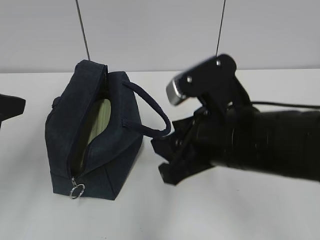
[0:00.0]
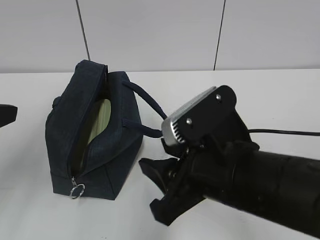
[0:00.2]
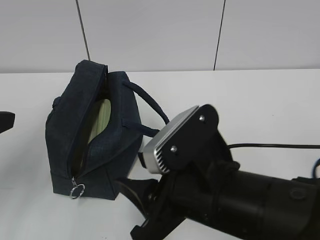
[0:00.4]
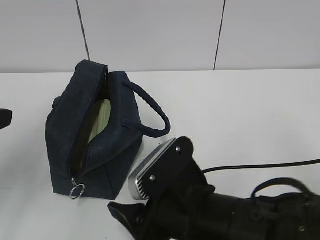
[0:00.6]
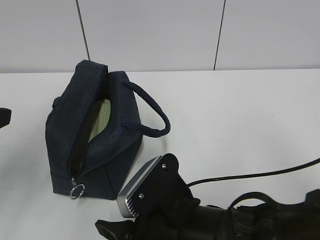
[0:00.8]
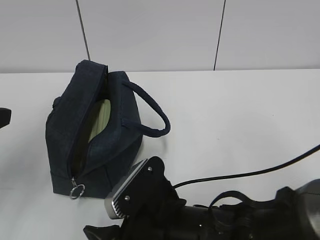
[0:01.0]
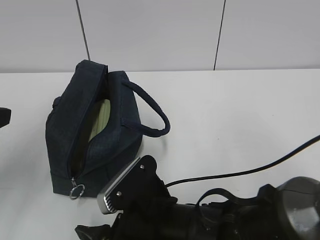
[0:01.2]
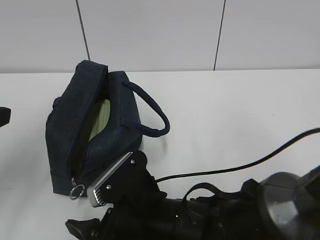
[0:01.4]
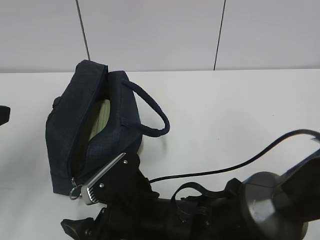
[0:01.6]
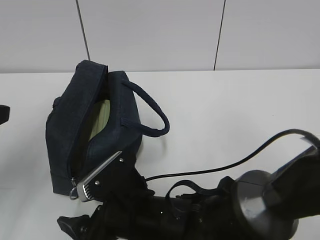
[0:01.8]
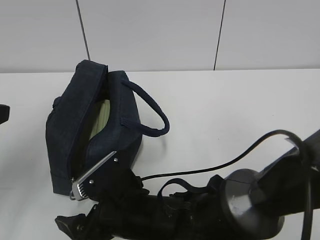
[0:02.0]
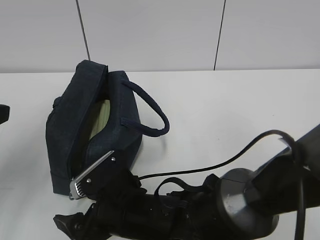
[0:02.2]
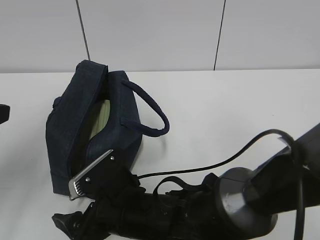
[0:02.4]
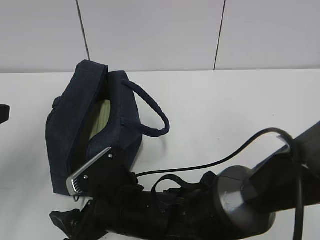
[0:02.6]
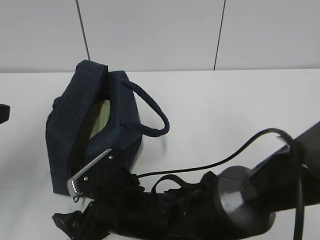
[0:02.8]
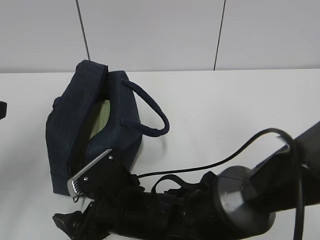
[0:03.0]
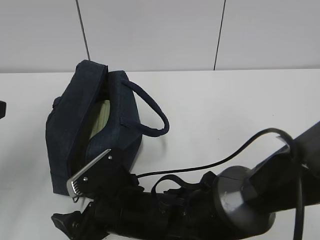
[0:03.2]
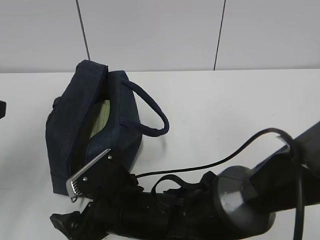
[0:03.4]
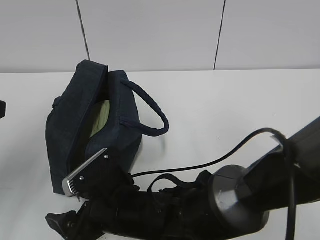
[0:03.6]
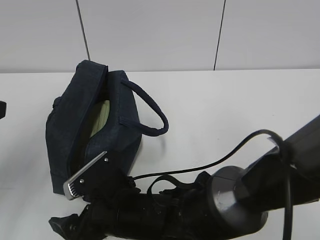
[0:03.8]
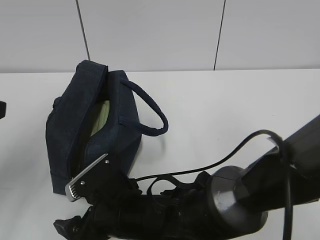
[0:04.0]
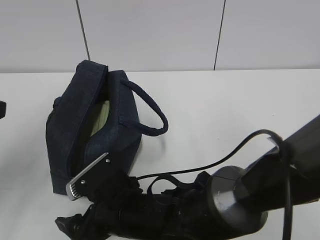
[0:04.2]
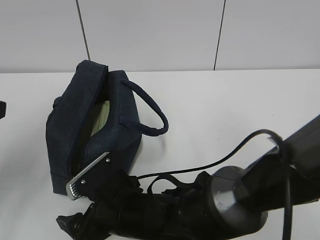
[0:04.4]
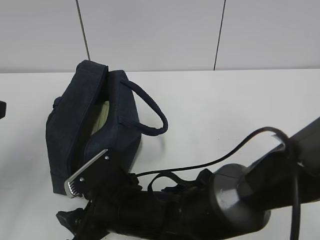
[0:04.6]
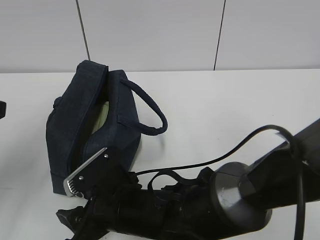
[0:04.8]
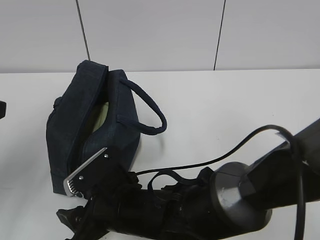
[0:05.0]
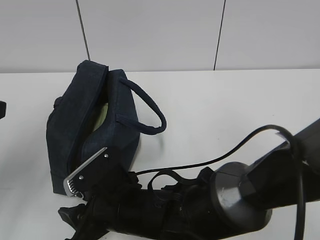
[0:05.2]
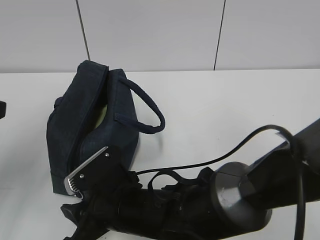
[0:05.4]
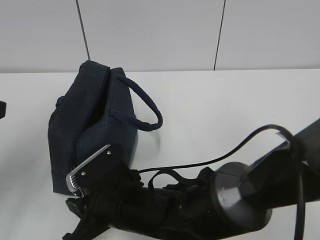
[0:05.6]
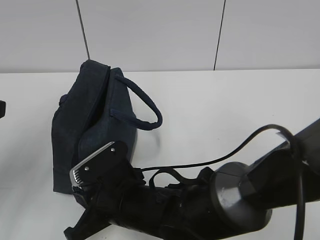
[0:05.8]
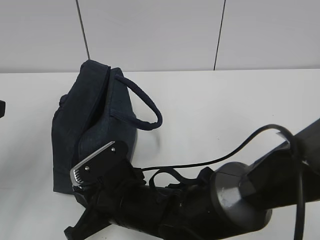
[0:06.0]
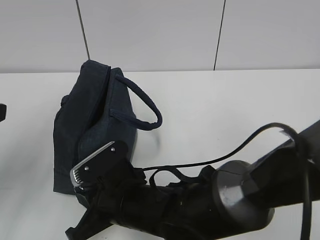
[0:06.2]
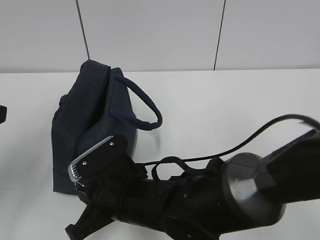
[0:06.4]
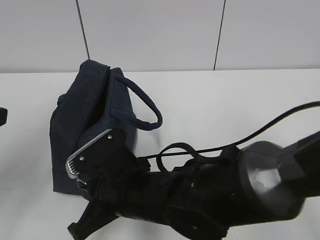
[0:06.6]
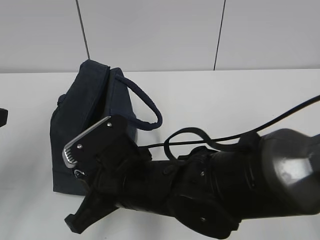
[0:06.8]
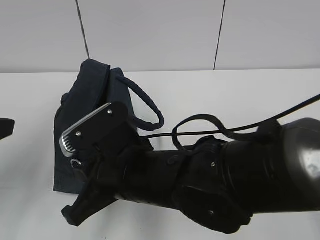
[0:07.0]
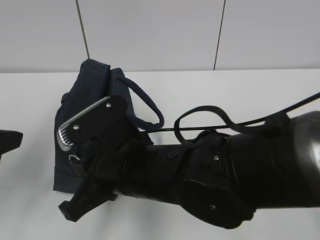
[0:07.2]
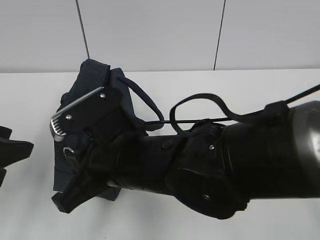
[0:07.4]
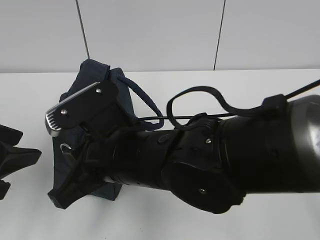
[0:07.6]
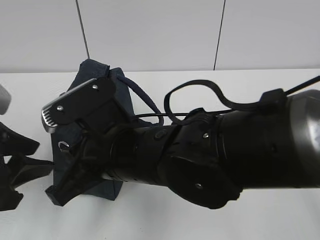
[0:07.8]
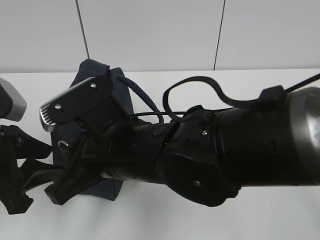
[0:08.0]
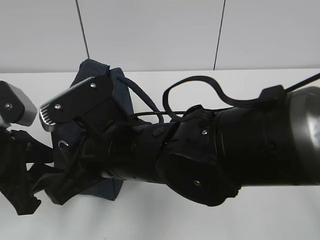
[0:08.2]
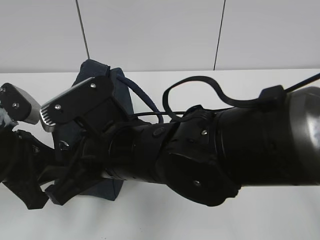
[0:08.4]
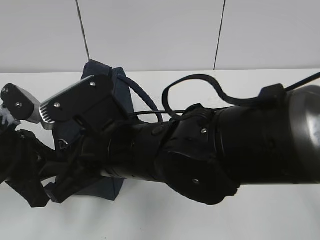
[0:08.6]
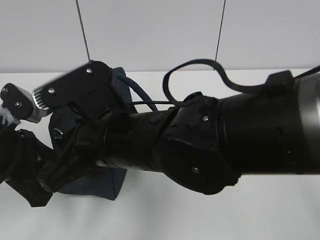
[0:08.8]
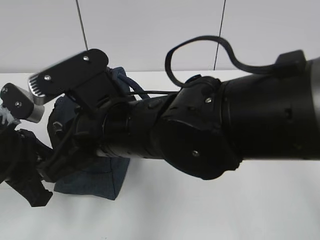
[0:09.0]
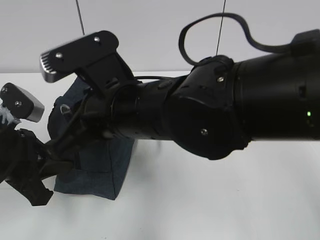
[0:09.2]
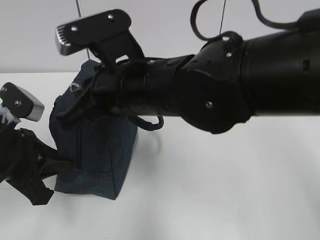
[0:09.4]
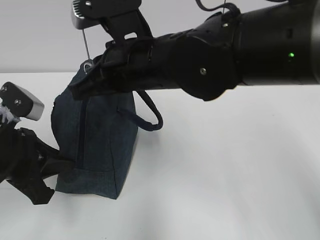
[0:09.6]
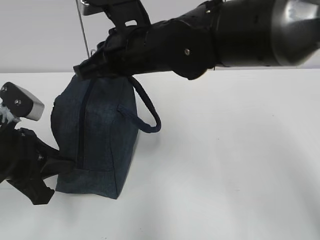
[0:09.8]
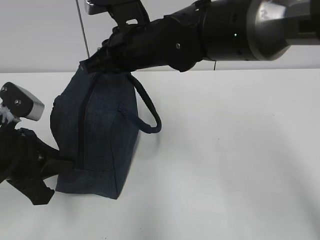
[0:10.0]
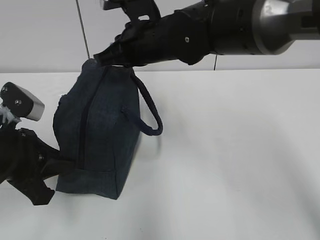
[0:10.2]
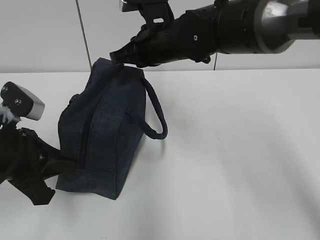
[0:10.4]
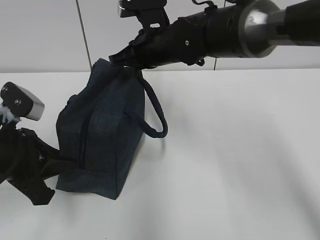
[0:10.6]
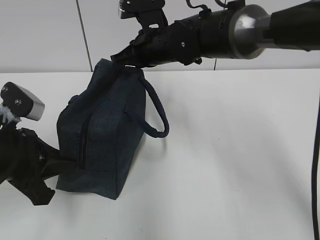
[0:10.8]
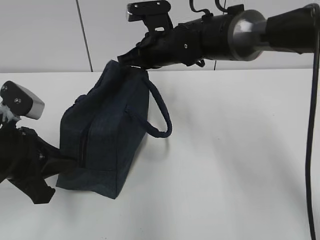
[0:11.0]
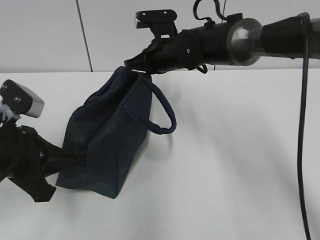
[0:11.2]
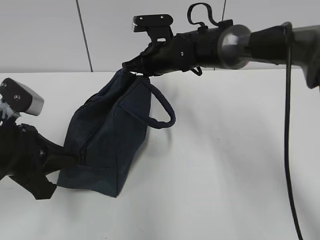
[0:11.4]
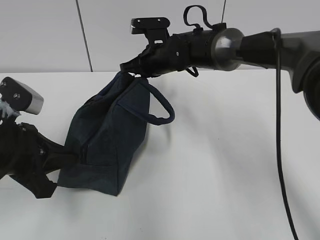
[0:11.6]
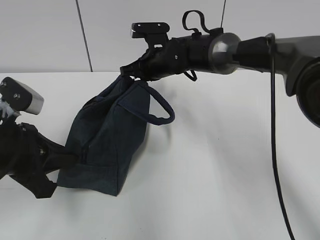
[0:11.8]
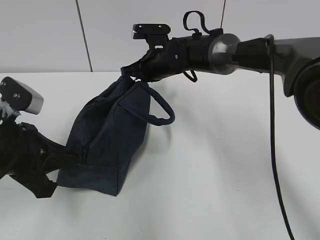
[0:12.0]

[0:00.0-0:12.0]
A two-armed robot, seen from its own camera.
0:00.0 to 0:01.6: The right gripper travels downward and to the left by roughly 15 cm.
0:01.6 to 0:03.0: The grippers make only small movements.
0:03.0 to 0:04.4: Both grippers stay put.
0:04.4 to 0:06.0: The right gripper closes its fingers.
0:06.0 to 0:07.6: The left gripper changes place by about 5 cm. Meanwhile the right gripper goes roughly 10 cm upward.
0:07.6 to 0:09.0: The left gripper travels downward by some 5 cm, and closes up.
0:09.0 to 0:10.4: The right gripper goes approximately 20 cm forward.
0:10.4 to 0:12.0: The right gripper heads forward and downward, covering about 10 cm.

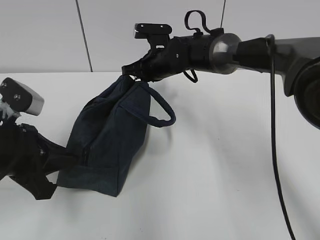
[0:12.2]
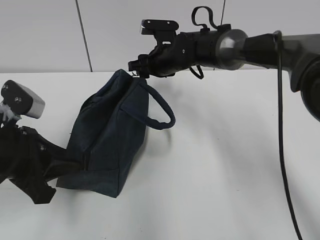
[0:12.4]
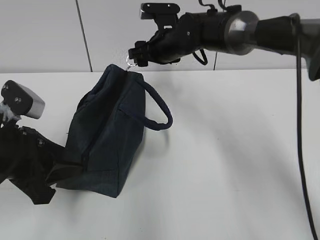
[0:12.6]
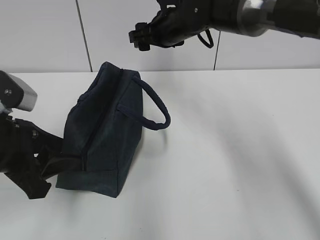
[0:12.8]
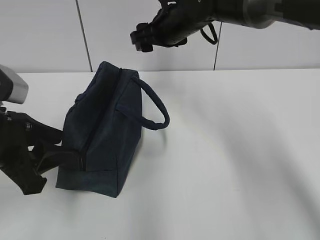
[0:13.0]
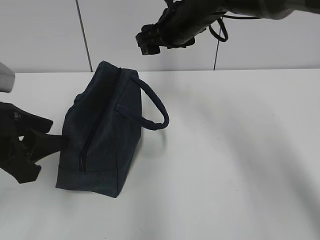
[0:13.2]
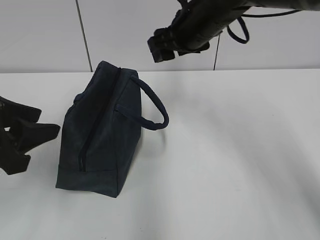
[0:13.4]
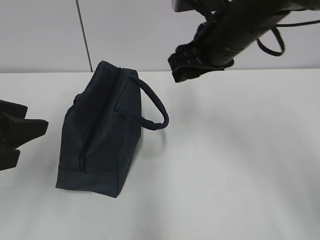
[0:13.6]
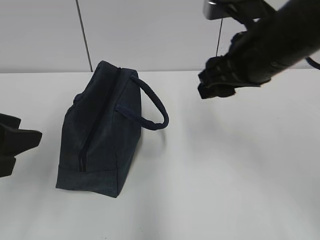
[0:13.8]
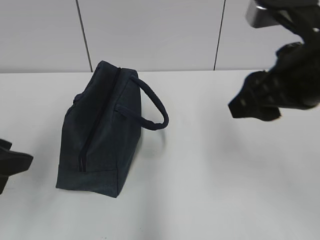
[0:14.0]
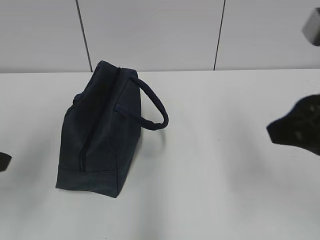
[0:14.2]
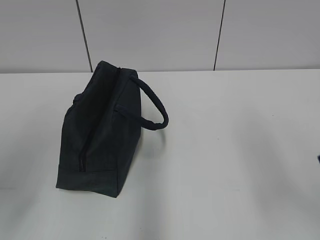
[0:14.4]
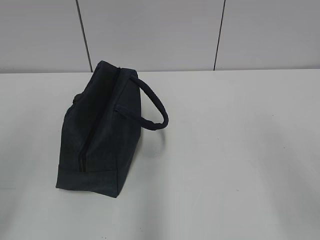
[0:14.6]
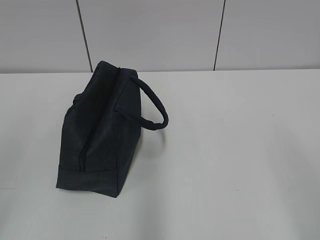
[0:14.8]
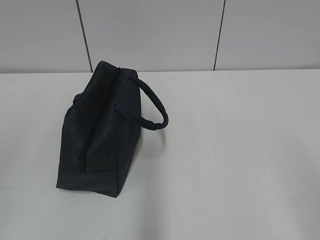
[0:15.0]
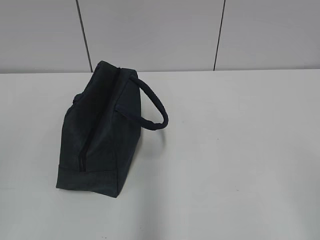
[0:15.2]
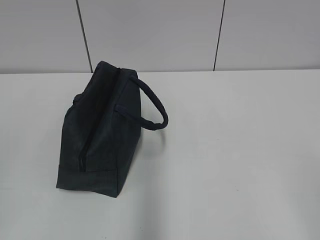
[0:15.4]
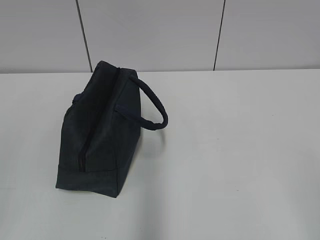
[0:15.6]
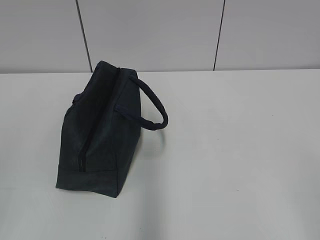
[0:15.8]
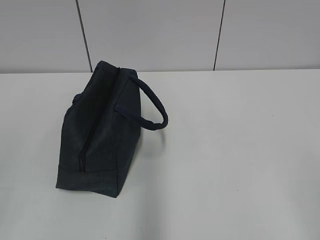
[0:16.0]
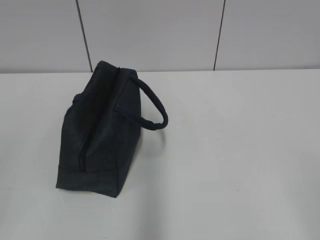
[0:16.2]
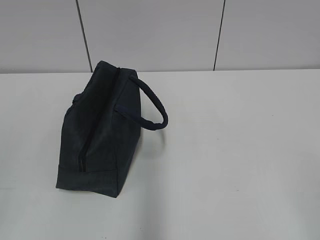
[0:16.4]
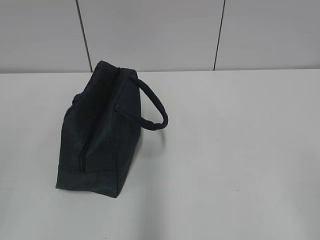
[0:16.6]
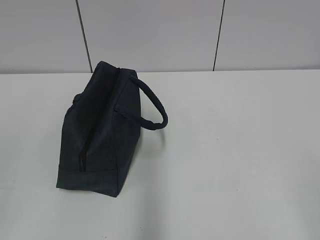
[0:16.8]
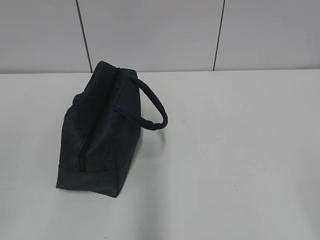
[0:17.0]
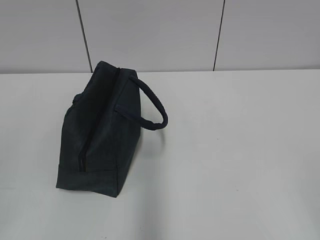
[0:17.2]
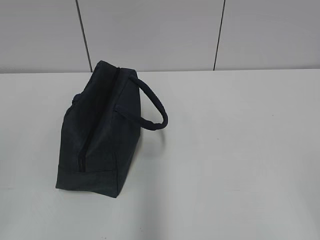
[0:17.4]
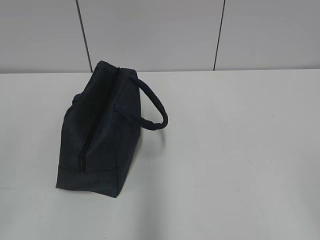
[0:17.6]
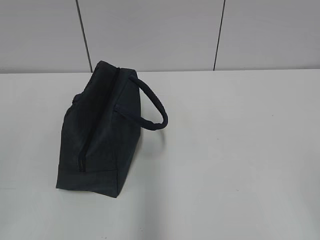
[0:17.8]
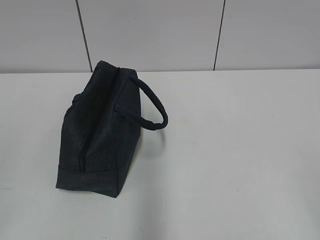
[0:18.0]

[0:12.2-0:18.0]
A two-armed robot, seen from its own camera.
0:12.2 to 0:13.6: The right gripper moves backward, upward and to the right, about 20 cm, and opens its fingers. The left gripper heads upward, covering roughly 5 cm, and opens.
0:13.6 to 0:15.0: The left gripper travels backward by roughly 20 cm. The right gripper moves backward and to the right, about 35 cm.

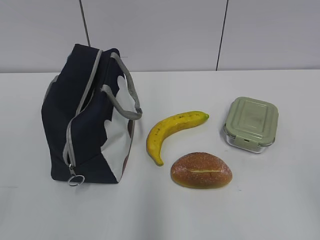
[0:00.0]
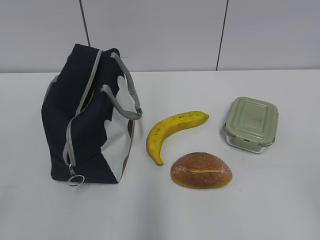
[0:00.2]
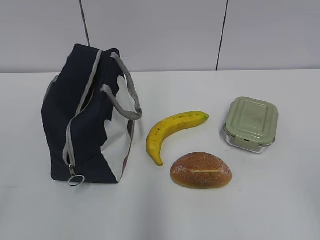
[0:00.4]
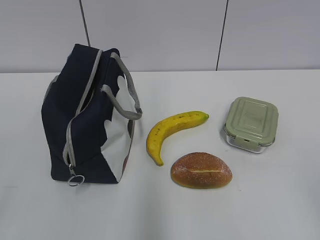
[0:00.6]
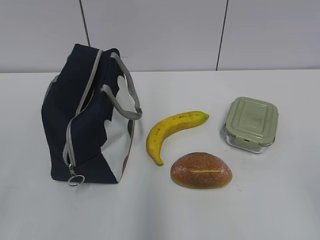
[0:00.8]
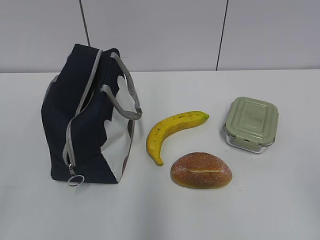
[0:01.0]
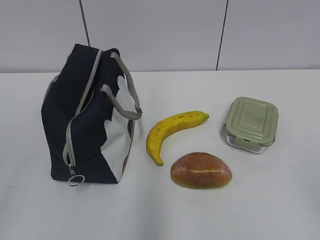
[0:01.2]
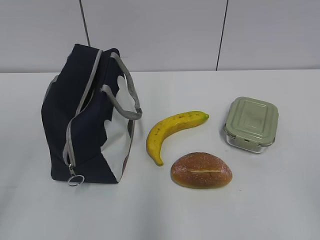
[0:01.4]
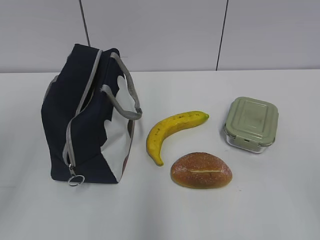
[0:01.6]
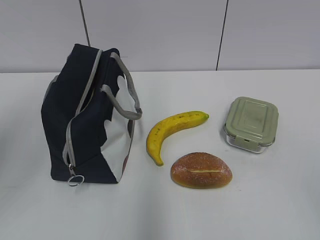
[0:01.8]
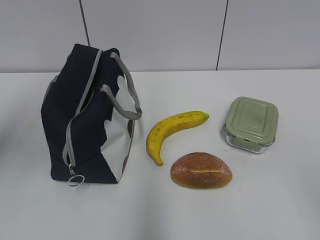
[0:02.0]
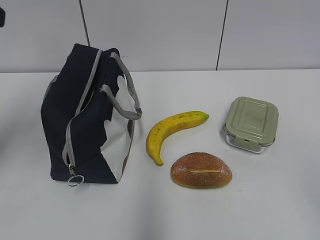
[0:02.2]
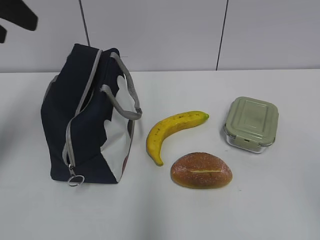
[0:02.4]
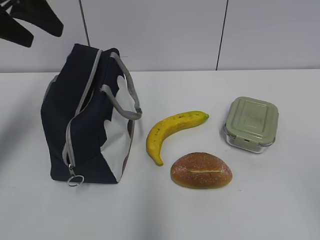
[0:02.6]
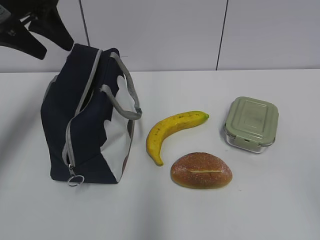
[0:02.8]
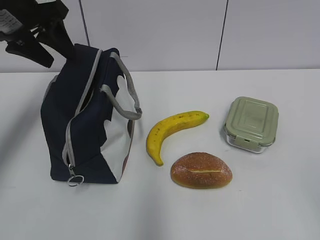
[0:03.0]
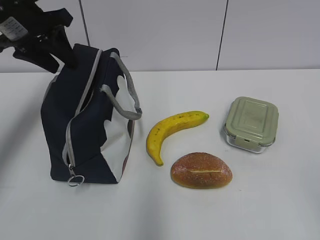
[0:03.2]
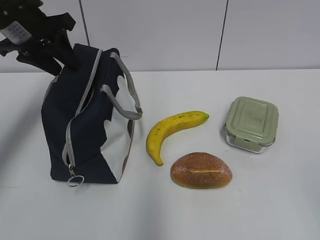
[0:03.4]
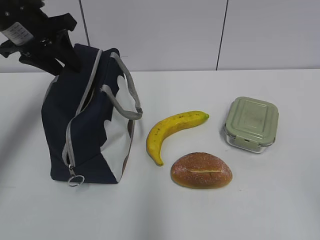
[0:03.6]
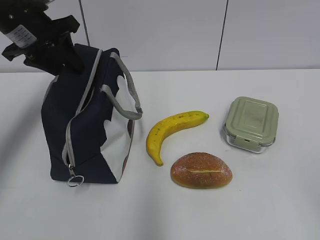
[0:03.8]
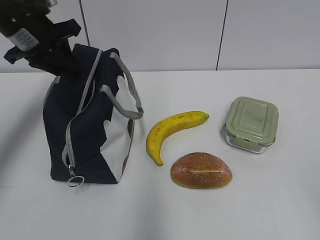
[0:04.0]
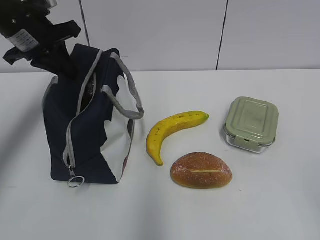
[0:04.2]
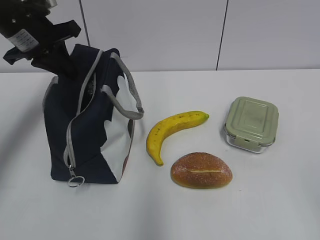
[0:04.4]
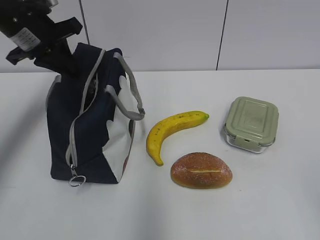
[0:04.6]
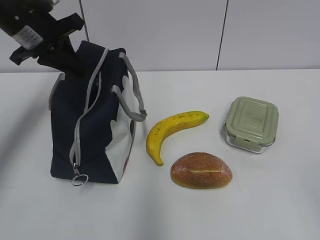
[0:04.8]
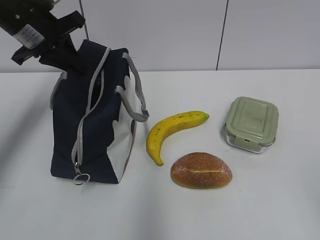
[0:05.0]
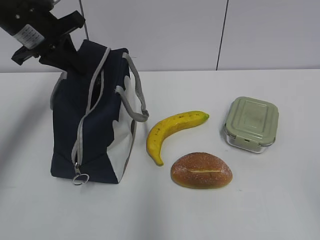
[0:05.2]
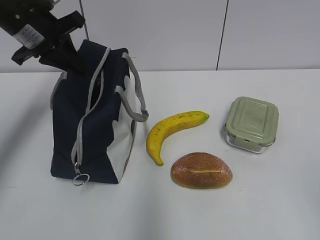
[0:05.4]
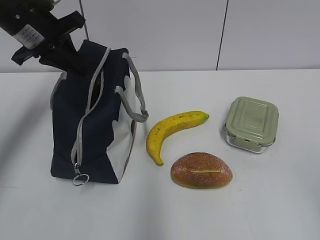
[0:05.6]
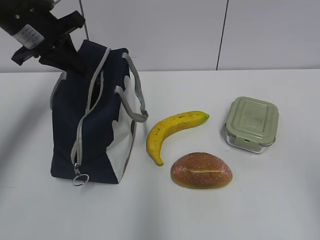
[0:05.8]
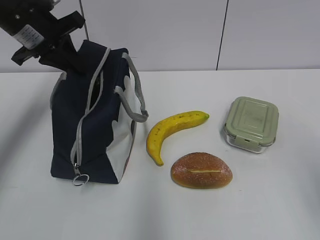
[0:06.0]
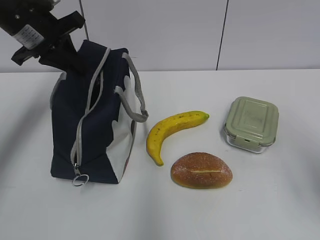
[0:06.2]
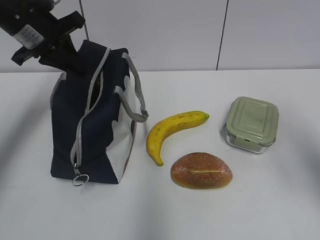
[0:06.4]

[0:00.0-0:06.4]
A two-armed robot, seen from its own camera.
0:01.6 to 0:03.2: The left gripper moves forward, about 30 cm.
0:03.2 to 0:04.8: The left gripper closes.
0:04.8 to 0:06.4: The right gripper heads forward, covering approximately 20 cm.
